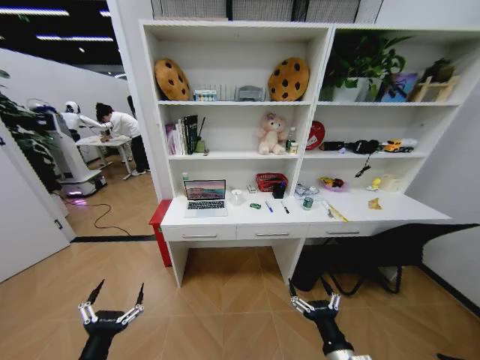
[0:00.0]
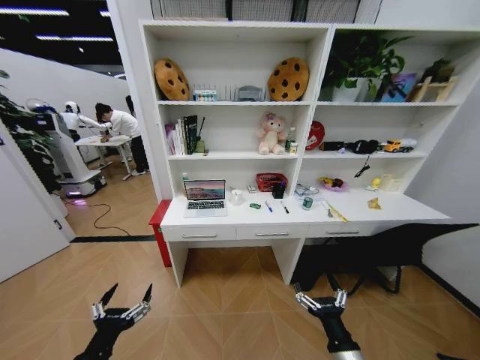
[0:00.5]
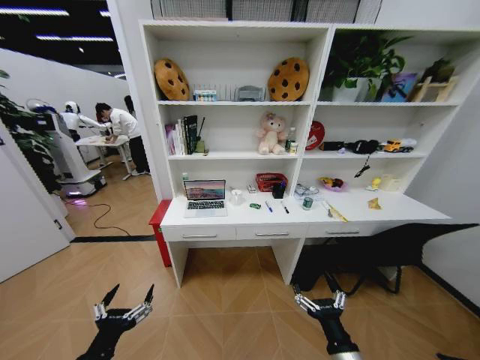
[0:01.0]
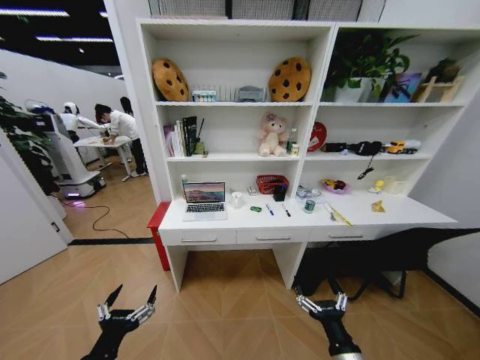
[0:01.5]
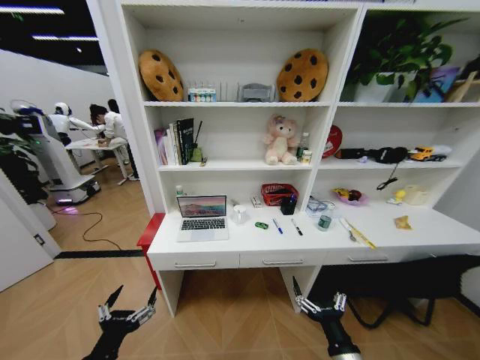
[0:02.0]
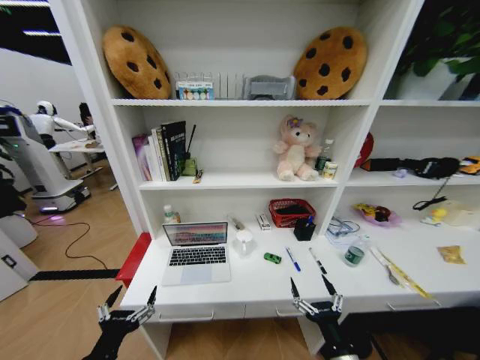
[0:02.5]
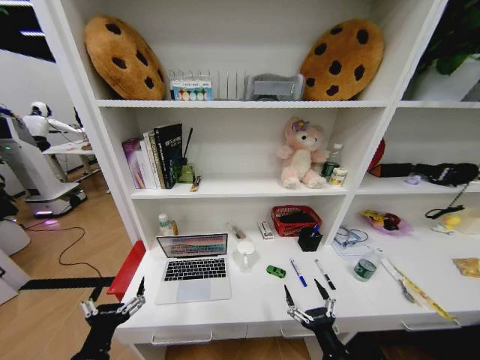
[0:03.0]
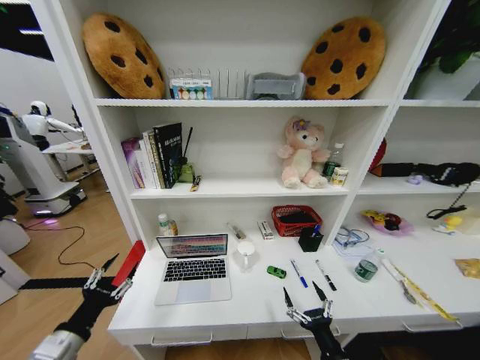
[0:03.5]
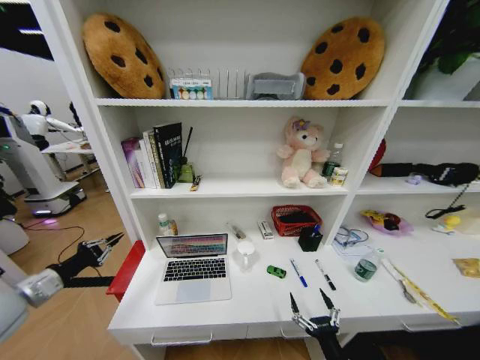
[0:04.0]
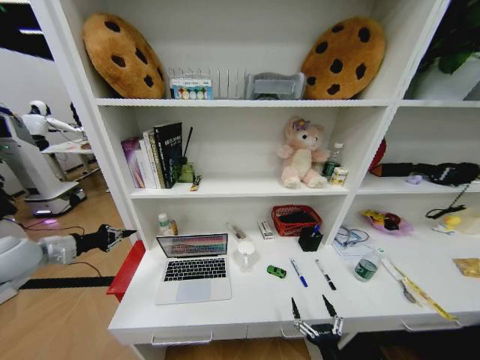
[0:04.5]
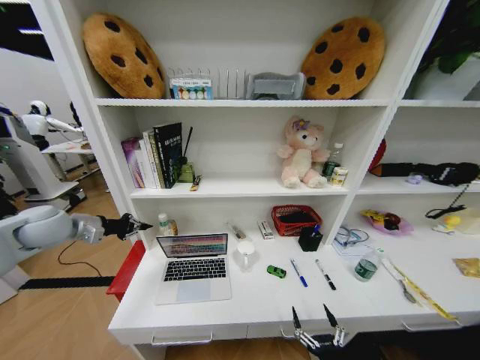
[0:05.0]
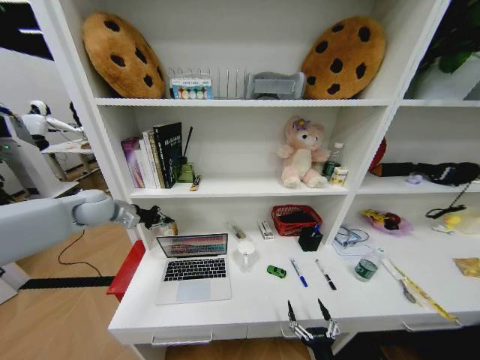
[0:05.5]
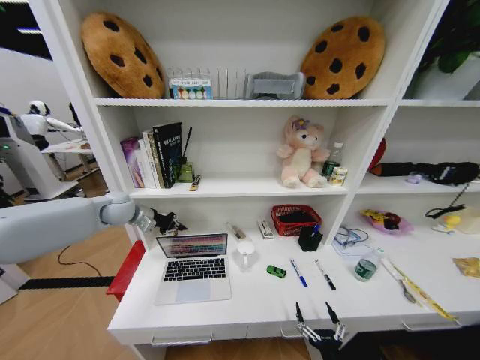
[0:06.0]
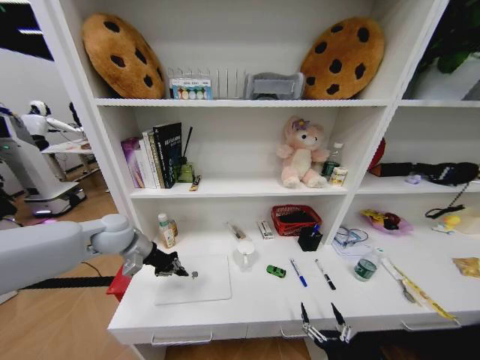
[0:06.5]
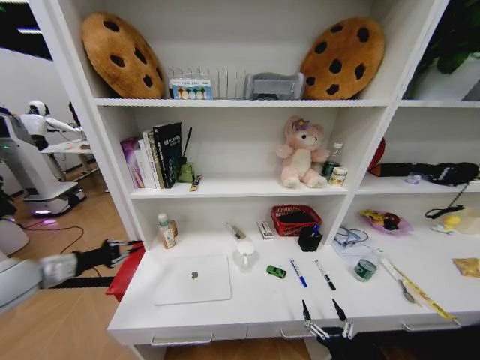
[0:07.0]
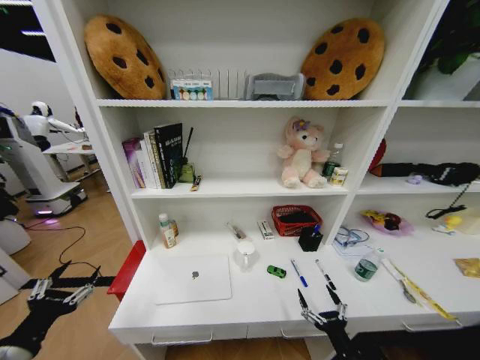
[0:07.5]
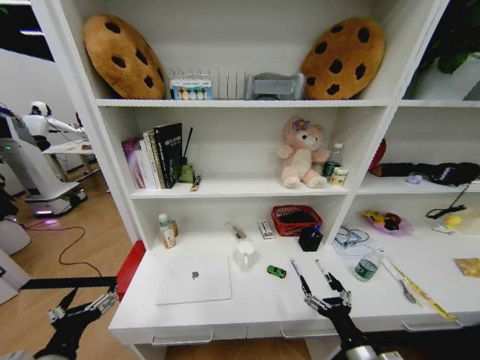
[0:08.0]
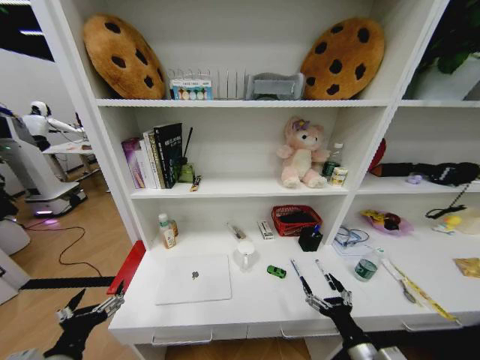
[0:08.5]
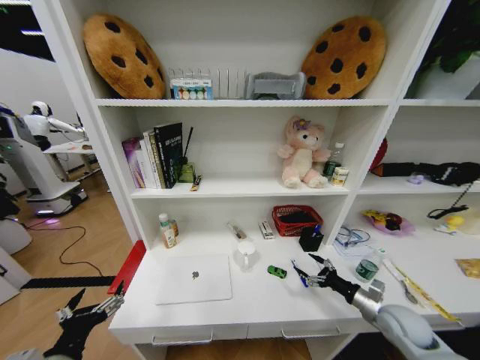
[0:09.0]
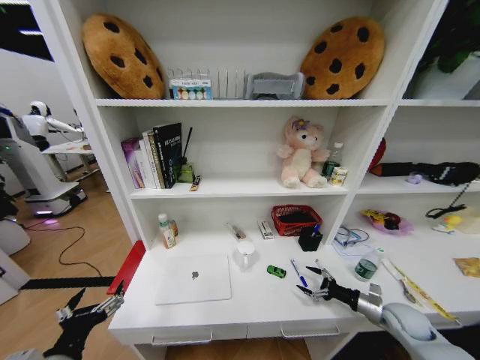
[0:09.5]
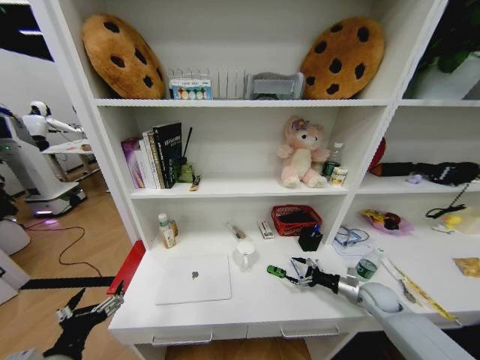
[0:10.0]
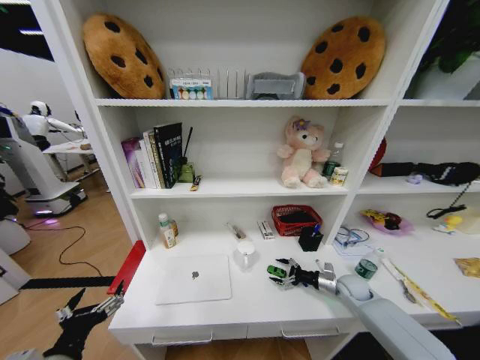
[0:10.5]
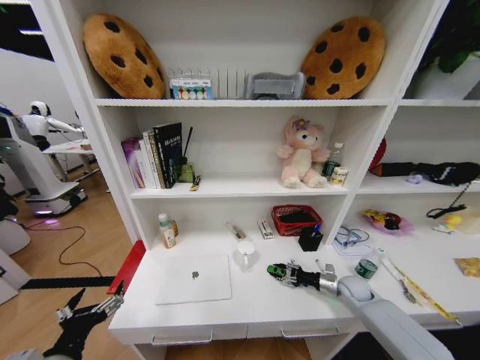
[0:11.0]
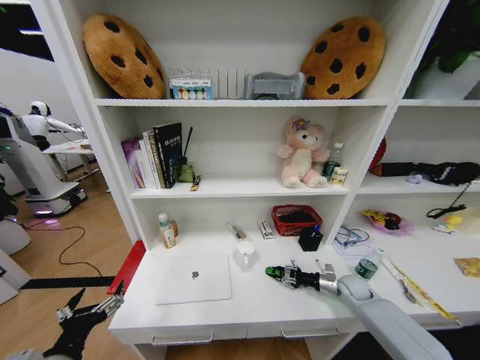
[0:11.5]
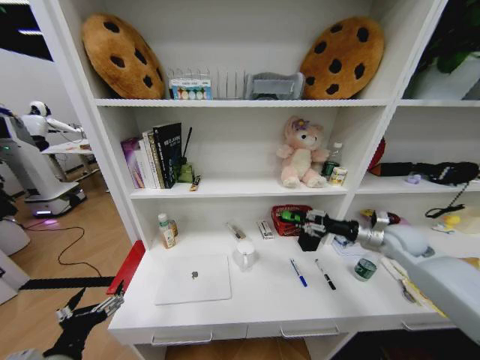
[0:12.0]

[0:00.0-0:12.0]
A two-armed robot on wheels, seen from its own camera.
Task of the whole recording: Organize the objects on the table.
0:02.0 to 0:04.0: The left gripper heads to the left and forward, covering roughly 30 cm, and closes, while the right gripper heads downward, covering some 5 cm.
0:04.0 to 0:06.0: The left gripper goes roughly 30 cm forward and to the right.
0:06.0 to 0:08.0: The right gripper shifts some 10 cm upward; the left gripper travels backward by approximately 40 cm, and opens up.
0:08.0 to 0:10.0: The right gripper travels forward and to the right by roughly 30 cm.
0:10.0 to 0:12.0: The right gripper shifts roughly 20 cm upward, and closes its fingers.

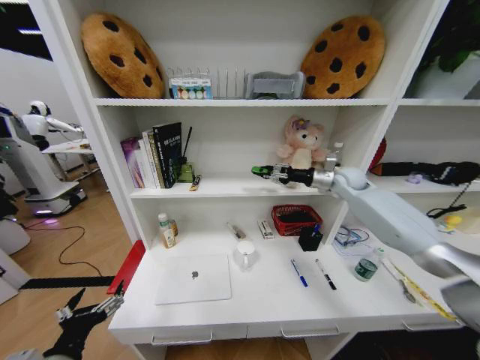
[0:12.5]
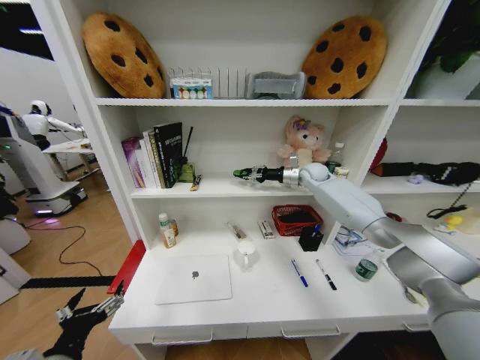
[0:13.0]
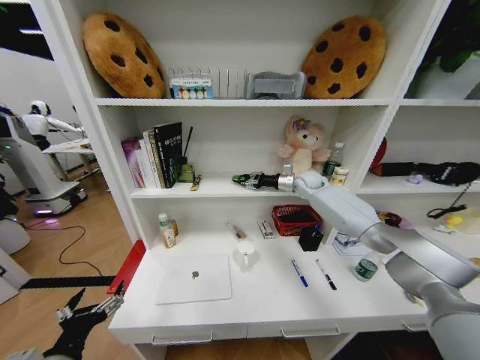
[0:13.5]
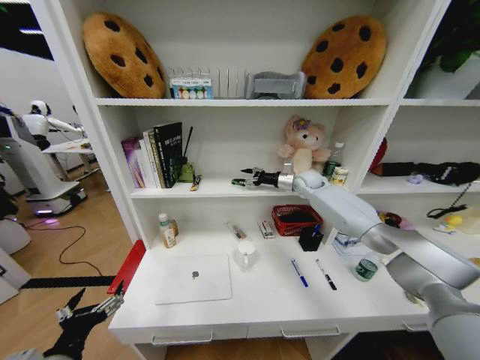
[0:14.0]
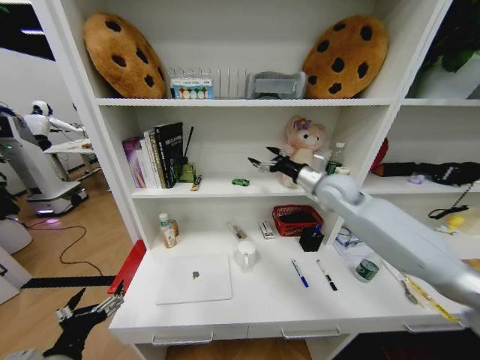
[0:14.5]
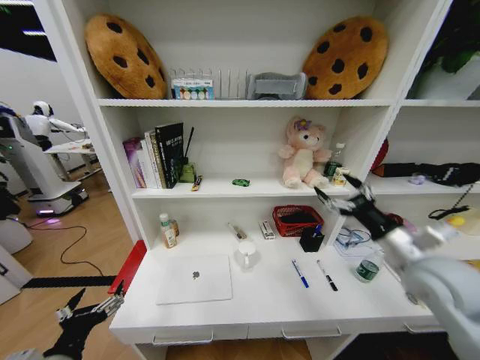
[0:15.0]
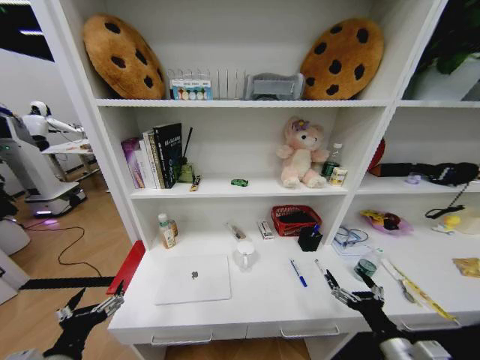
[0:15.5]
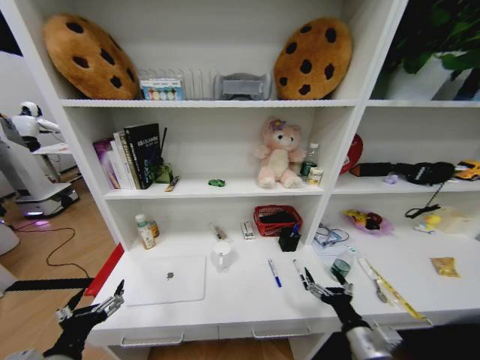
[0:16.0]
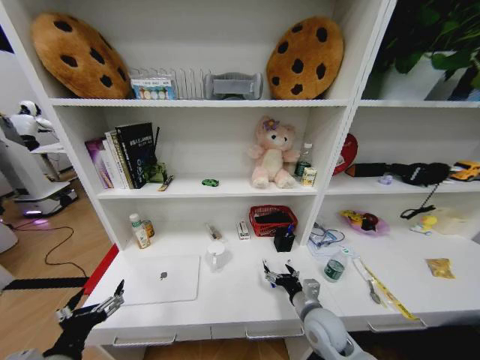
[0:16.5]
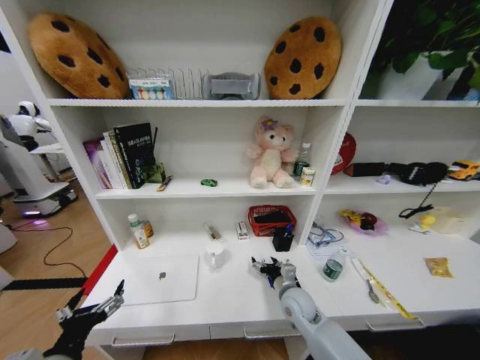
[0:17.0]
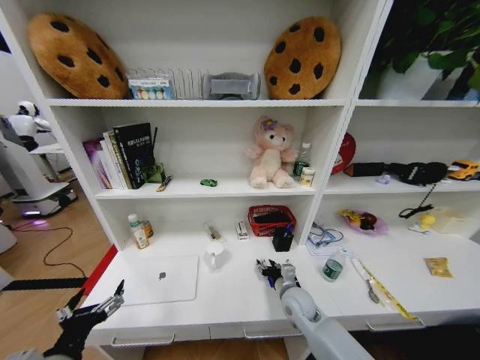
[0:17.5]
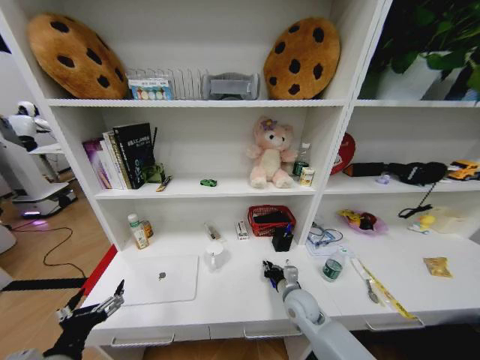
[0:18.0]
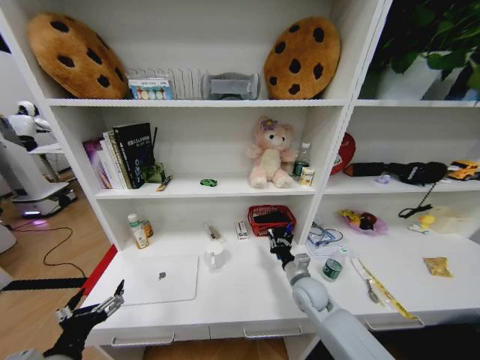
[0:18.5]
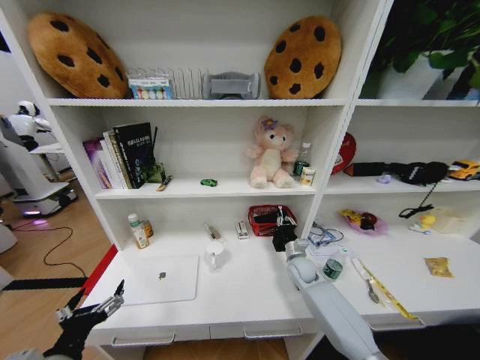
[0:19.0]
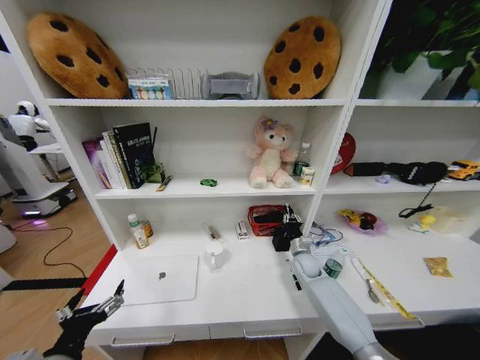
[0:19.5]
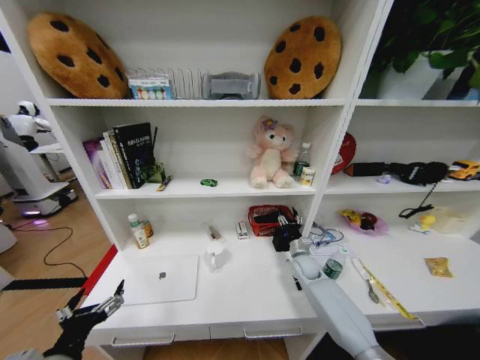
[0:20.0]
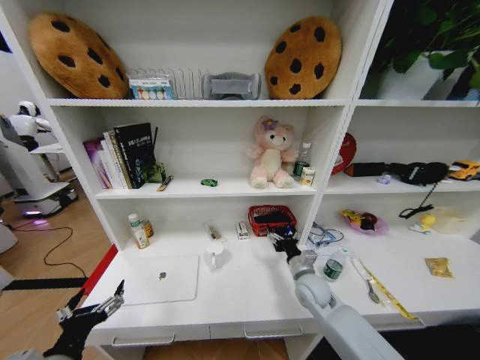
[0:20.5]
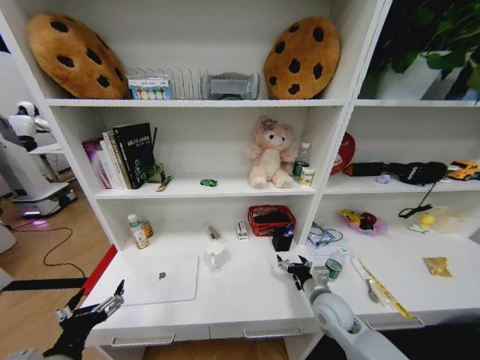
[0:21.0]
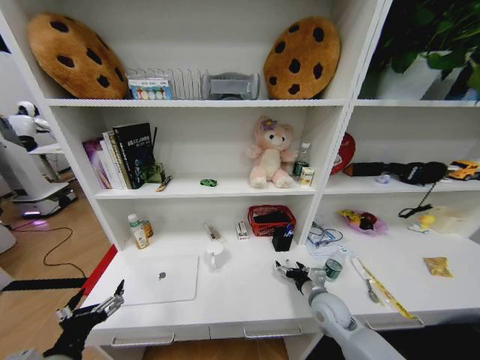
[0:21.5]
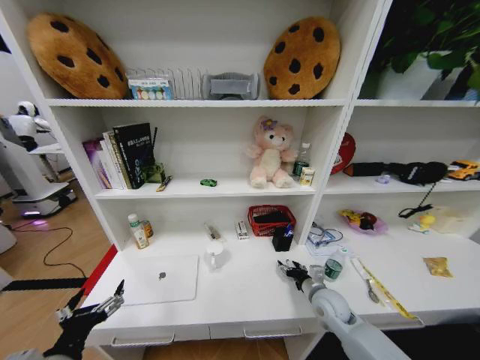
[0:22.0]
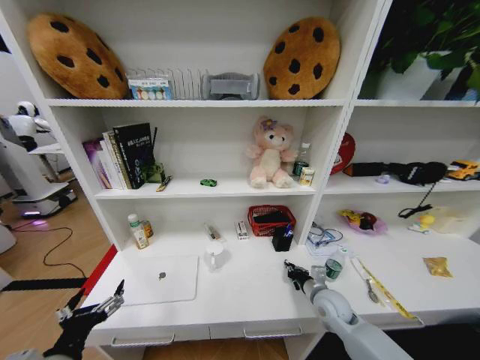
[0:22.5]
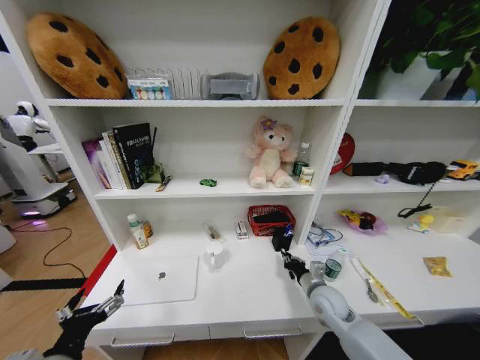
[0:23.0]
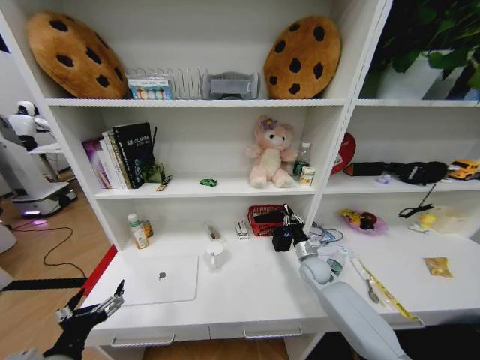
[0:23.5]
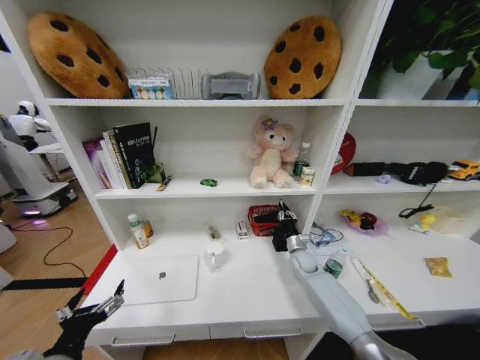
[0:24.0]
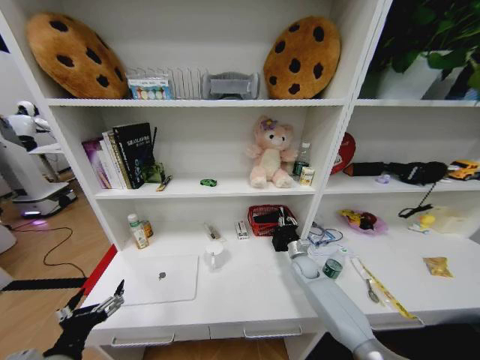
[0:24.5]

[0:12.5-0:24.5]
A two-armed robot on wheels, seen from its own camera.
Task of the whole recording: Organize the objects on the table.
0:12.5 to 0:14.5: The right gripper goes approximately 10 cm to the left, moves roughly 10 cm forward and comes back, and opens up.
0:14.5 to 0:16.5: The right gripper shifts about 40 cm downward and backward.
0:16.5 to 0:18.5: The right gripper travels forward by some 10 cm, and closes.
0:18.5 to 0:20.5: The right gripper reaches some 10 cm forward, then returns, and opens up.
0:20.5 to 0:22.5: The right gripper travels to the right by roughly 5 cm, and closes.
0:22.5 to 0:24.5: The right gripper travels forward by some 15 cm.

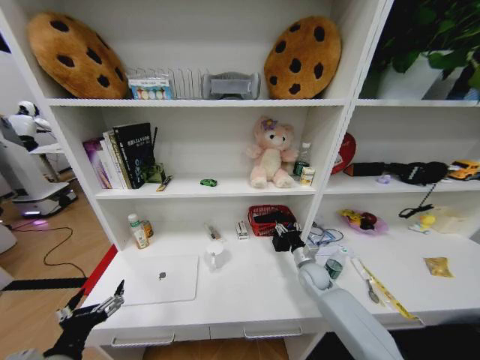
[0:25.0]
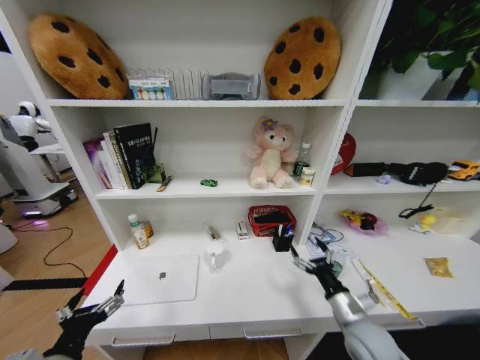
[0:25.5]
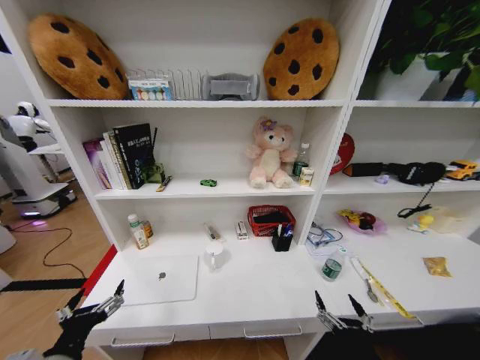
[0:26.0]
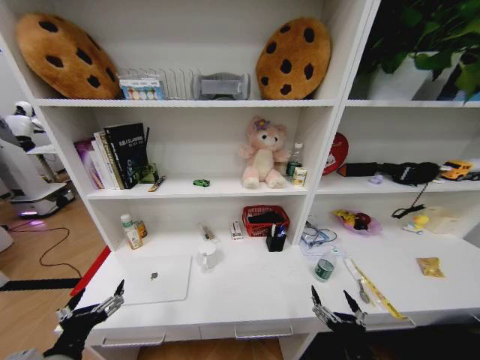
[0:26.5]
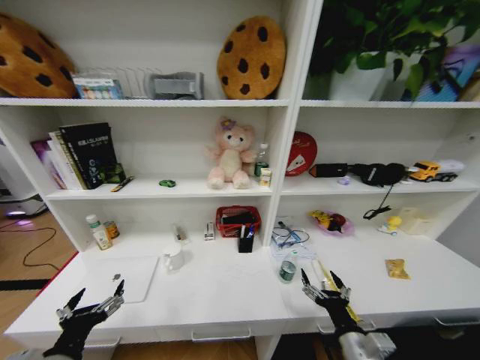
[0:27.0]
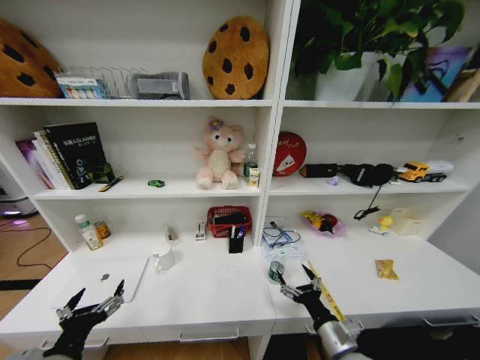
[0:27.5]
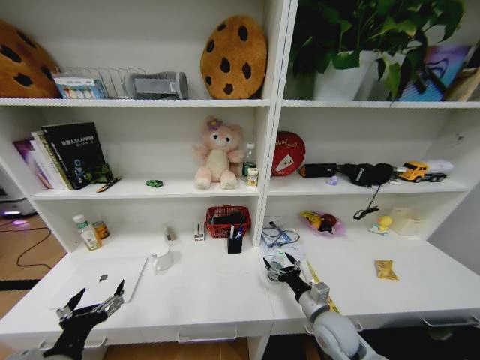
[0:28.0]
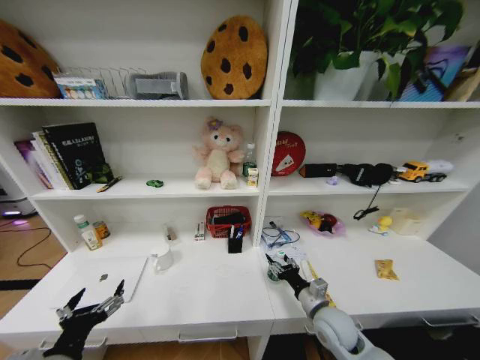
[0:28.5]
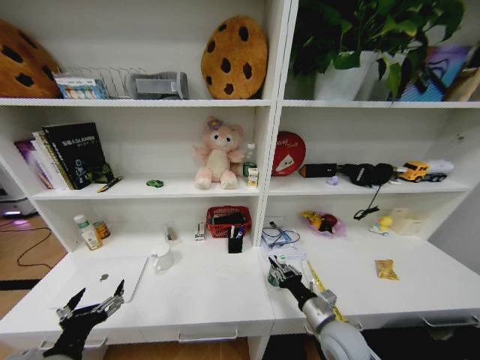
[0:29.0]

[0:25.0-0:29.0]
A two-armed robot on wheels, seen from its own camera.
Task of the whole recording: Organize the objects on the table.
0:25.0 to 0:27.0: The right gripper is displaced backward by approximately 30 cm.
0:27.0 to 0:29.0: The right gripper is displaced forward by about 10 cm, and closes up.
